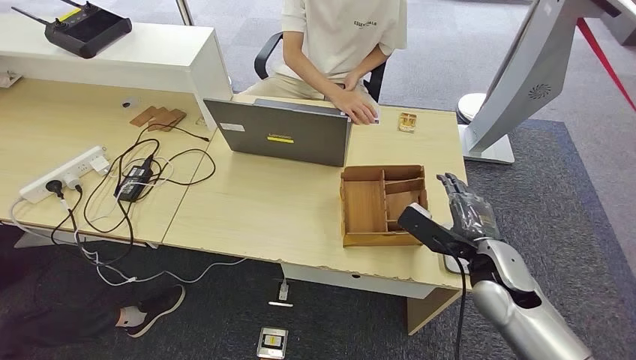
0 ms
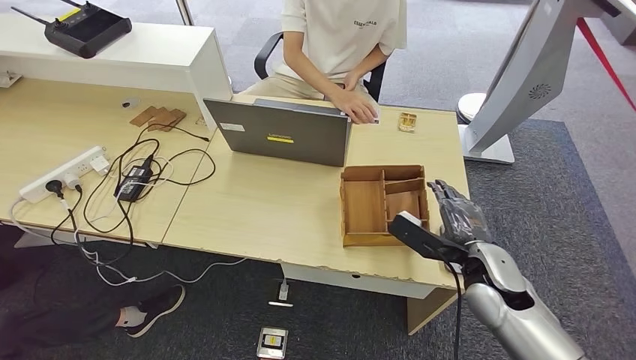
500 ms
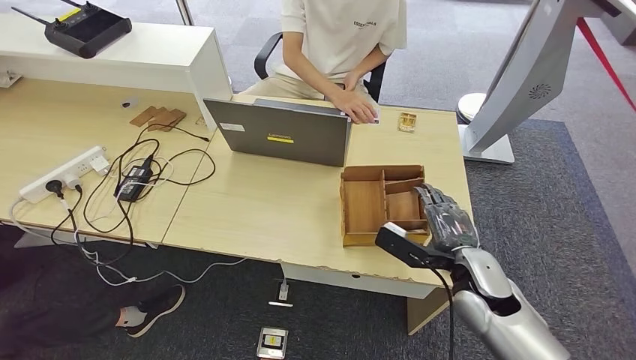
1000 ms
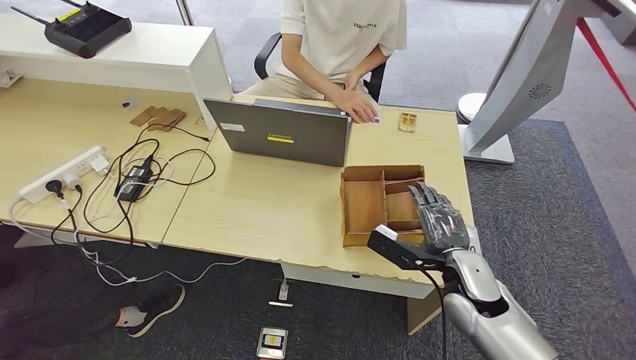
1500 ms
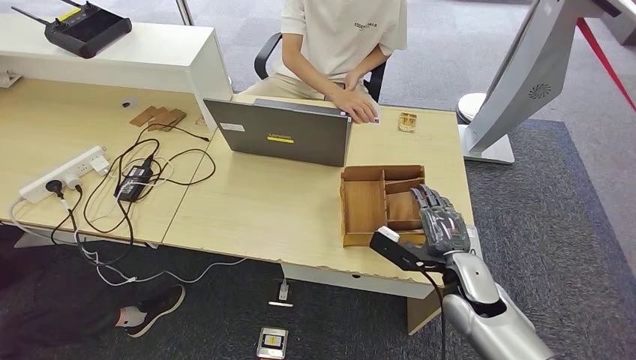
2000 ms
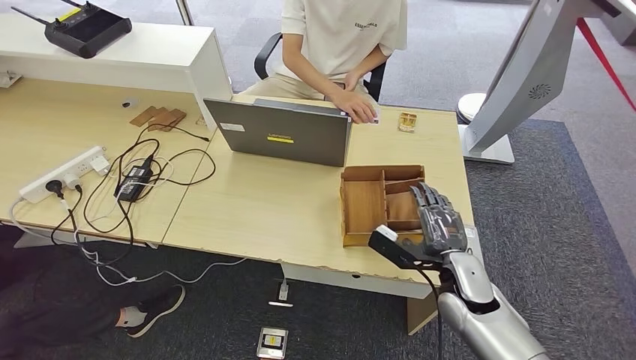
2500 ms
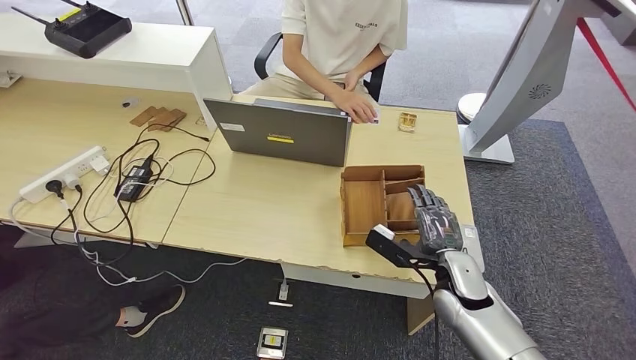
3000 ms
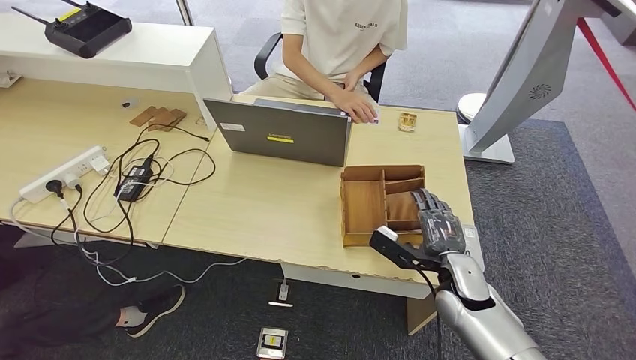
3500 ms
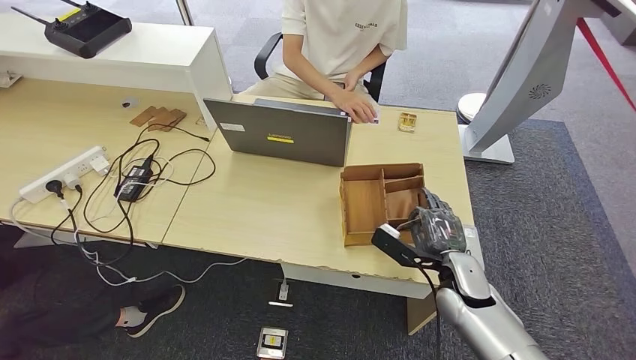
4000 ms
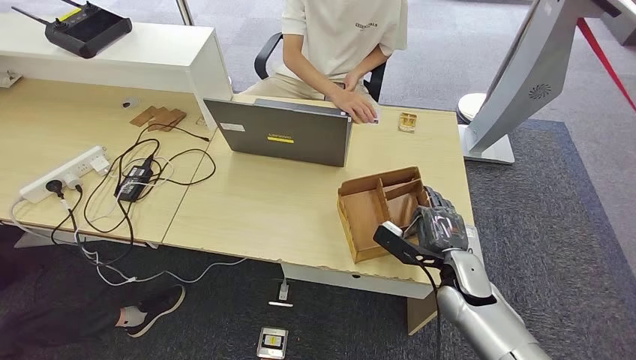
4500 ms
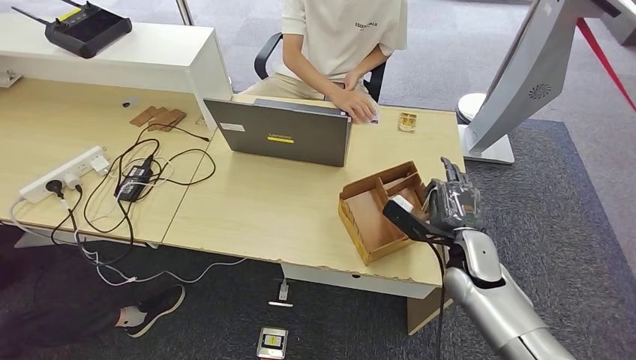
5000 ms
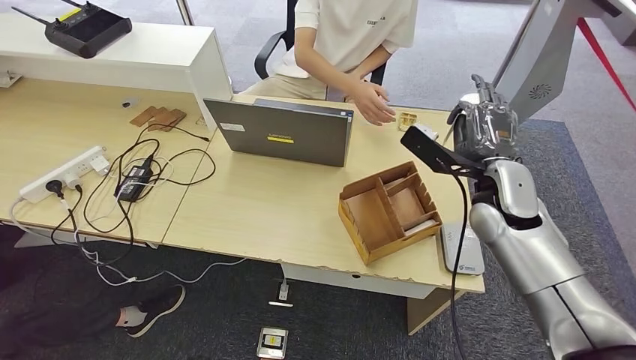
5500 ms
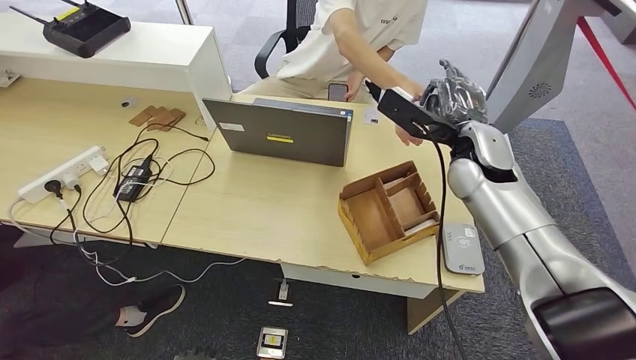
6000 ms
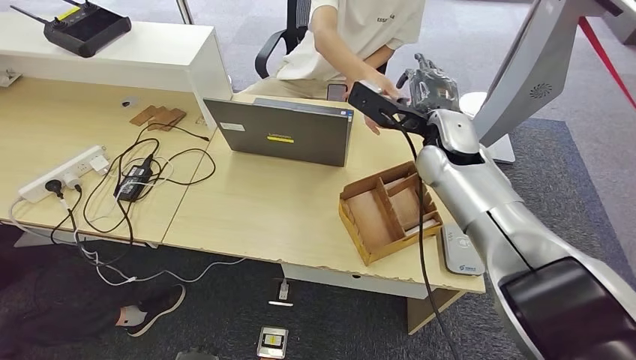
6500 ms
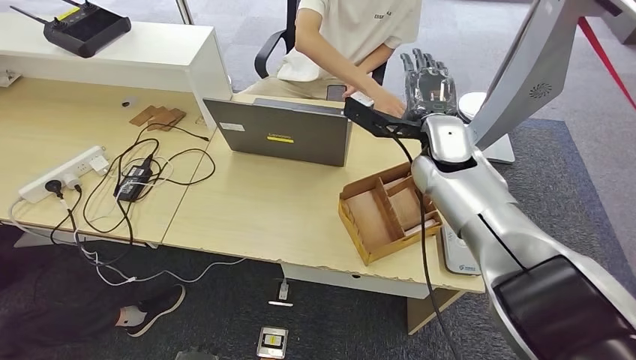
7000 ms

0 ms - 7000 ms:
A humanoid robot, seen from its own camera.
Step, 3500 ms - 5000 ms: Pick up the room key from the key card box.
Step, 5500 ms - 7000 ms: Hand the room key to the person.
0 ms - 2000 ms: The right hand moves approximately 5 cm.
2000 ms - 5000 ms: The hands move only a little.
5000 ms - 7000 ms: The right hand shifts roughly 20 cm upward, forward and to the left.
